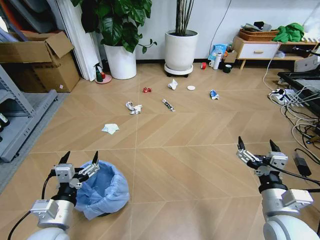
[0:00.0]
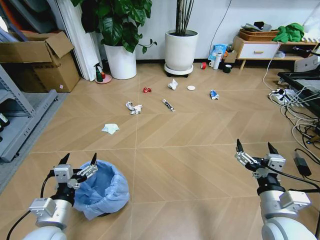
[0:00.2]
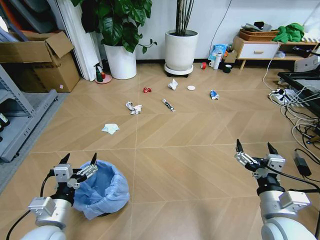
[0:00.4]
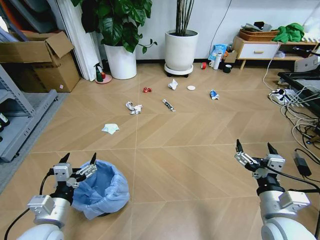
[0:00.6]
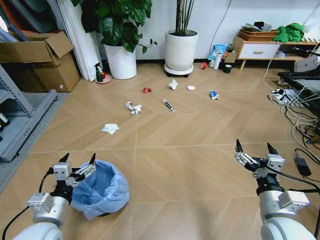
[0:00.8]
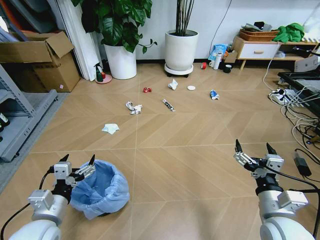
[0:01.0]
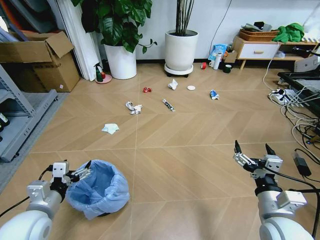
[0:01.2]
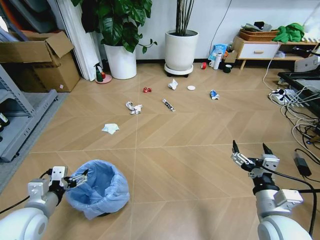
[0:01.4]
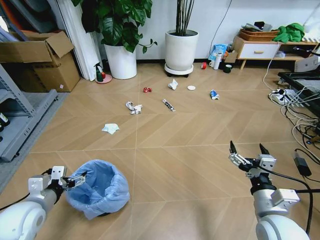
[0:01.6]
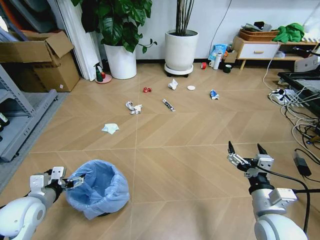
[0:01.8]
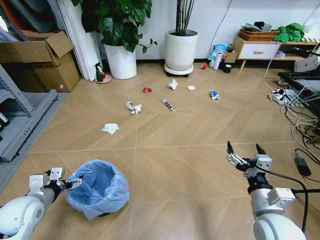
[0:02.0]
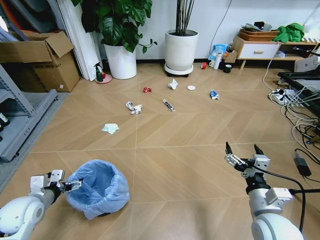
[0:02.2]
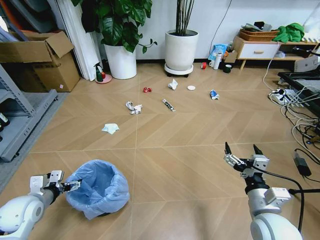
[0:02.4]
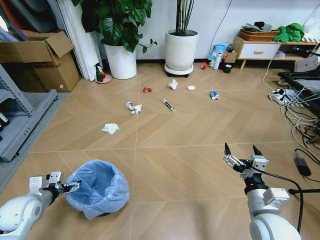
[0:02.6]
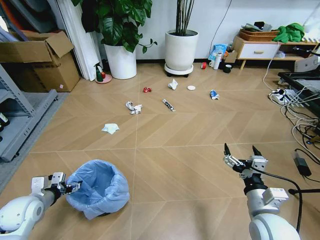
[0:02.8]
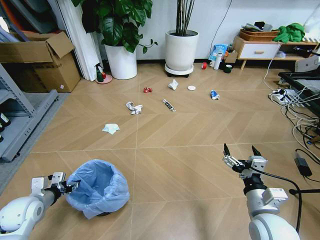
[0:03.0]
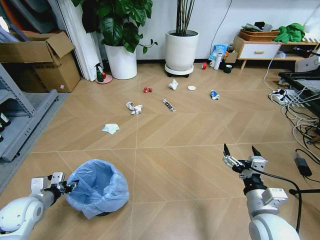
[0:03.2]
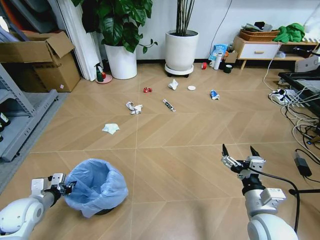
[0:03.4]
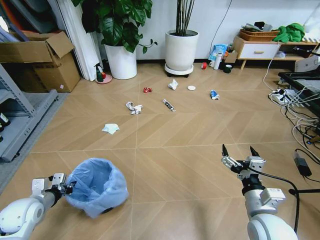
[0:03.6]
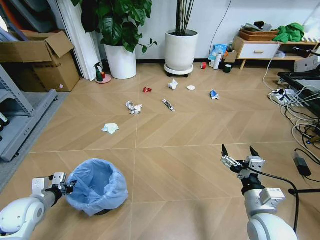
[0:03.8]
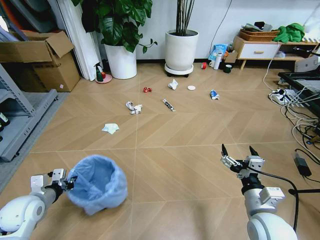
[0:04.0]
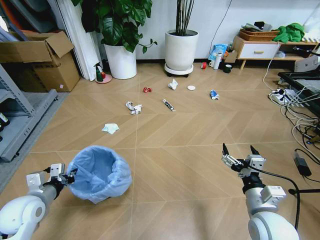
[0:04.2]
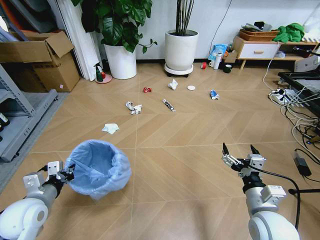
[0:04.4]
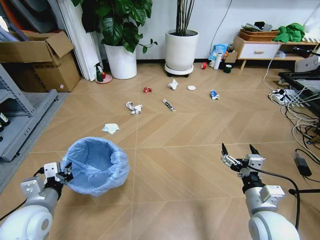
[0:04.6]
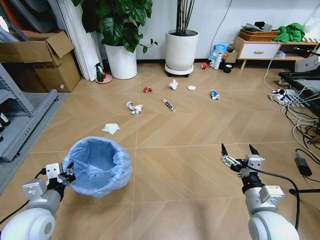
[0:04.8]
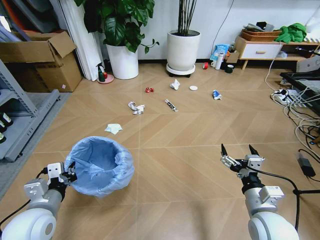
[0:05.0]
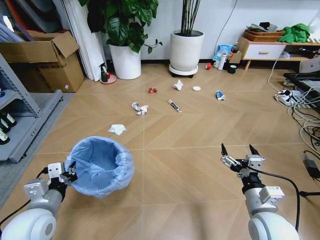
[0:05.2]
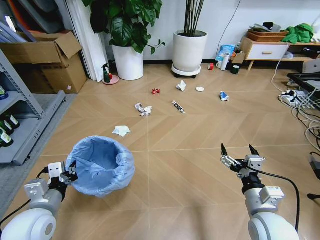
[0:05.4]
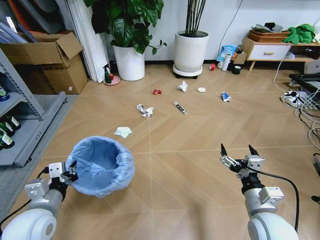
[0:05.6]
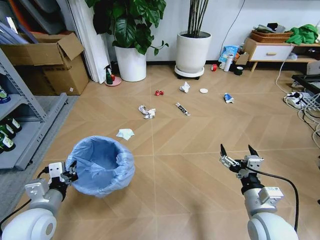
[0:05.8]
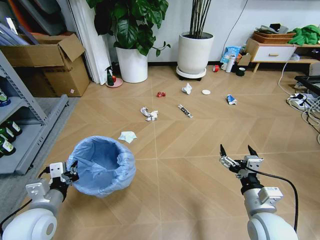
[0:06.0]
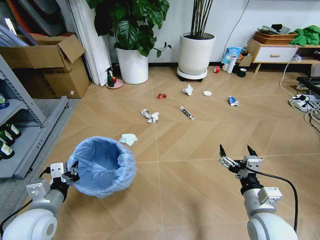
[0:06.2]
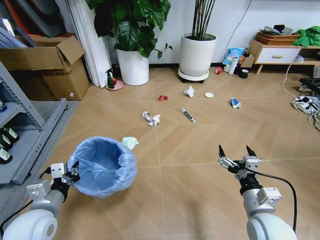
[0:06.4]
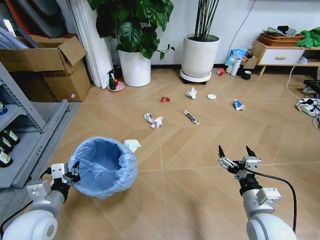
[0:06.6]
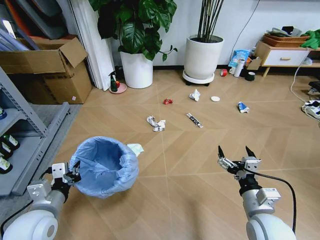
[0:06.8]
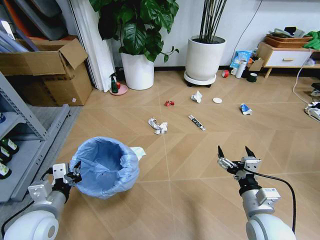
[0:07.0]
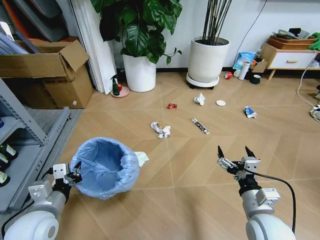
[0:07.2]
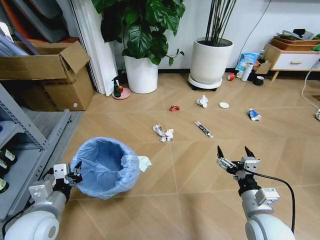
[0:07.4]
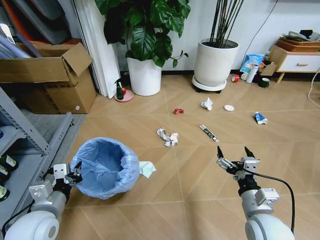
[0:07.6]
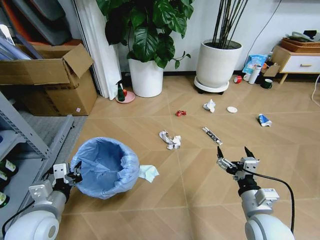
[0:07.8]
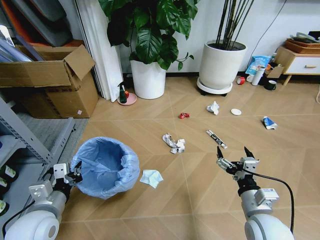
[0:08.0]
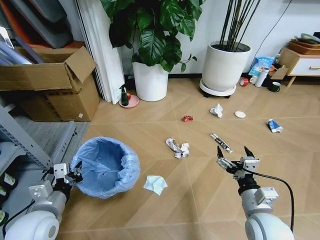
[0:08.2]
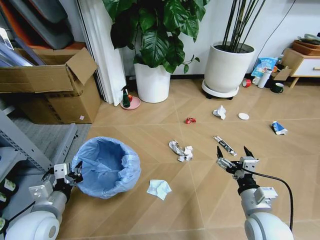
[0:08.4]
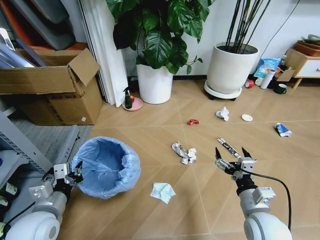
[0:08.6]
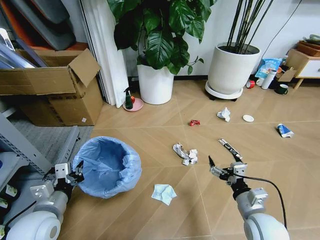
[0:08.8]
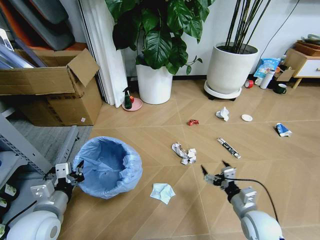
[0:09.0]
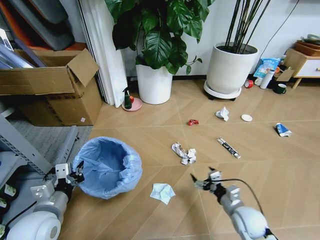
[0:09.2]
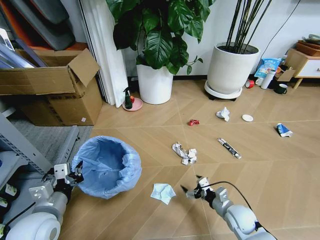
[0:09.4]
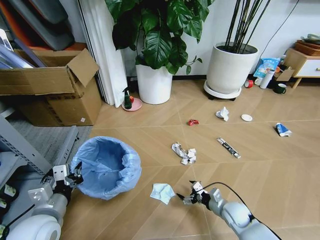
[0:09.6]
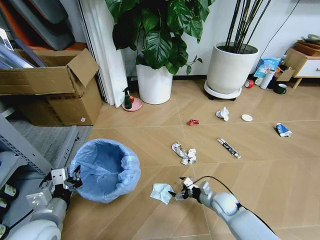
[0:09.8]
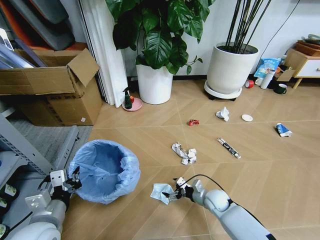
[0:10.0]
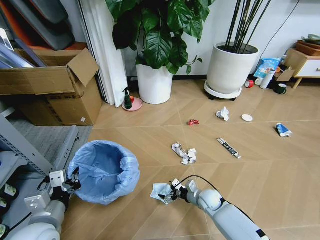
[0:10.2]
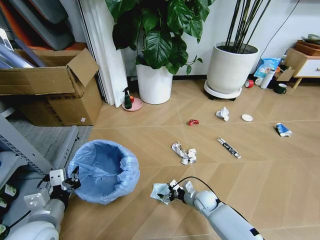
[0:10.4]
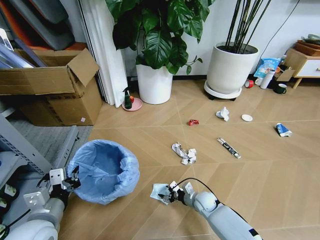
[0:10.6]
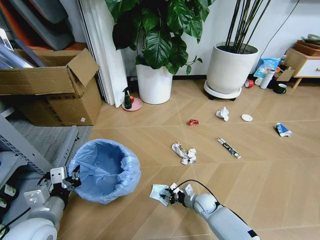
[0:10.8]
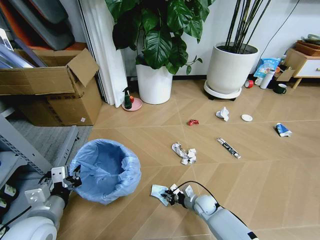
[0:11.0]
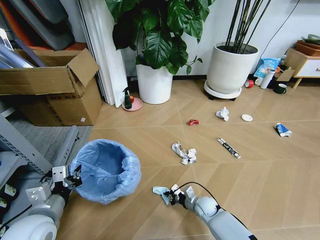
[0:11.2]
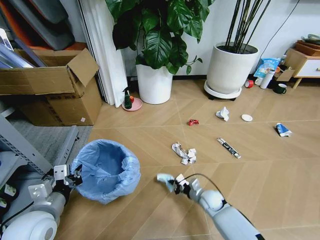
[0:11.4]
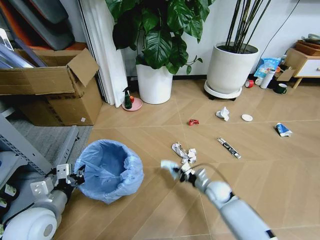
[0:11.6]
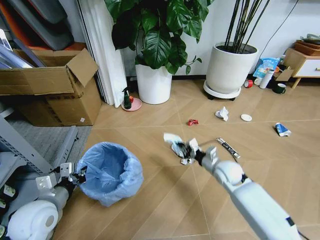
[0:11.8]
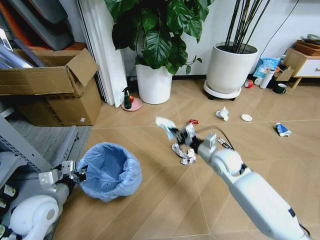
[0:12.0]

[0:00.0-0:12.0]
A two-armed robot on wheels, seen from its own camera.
Task of the whole recording: Pick up the trash bin and place the garbage on the floor into it.
0:01.6 to 0:03.0: The left gripper shifts approximately 10 cm downward and to the left, and closes its fingers.
0:03.0 to 0:04.4: The left gripper moves approximately 5 cm, and closes up.
0:04.4 to 0:06.0: The left gripper moves to the right, roughly 5 cm.
0:07.6 to 0:09.0: The right gripper is displaced downward by approximately 10 cm.
0:09.0 to 0:10.4: The right gripper shifts roughly 20 cm downward, forward and to the left.
0:10.4 to 0:12.0: The left gripper moves forward, some 5 cm. Meanwhile the right gripper shifts approximately 25 cm upward, and closes.

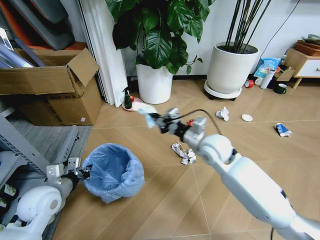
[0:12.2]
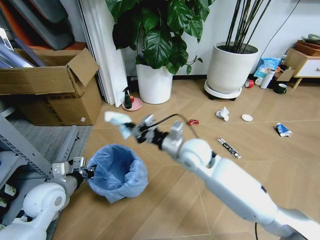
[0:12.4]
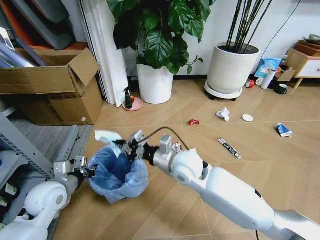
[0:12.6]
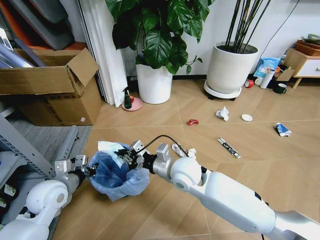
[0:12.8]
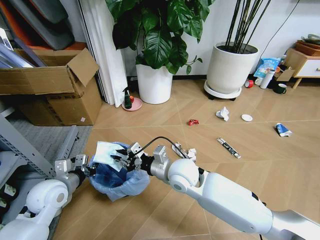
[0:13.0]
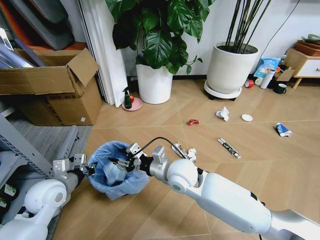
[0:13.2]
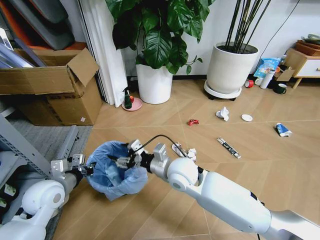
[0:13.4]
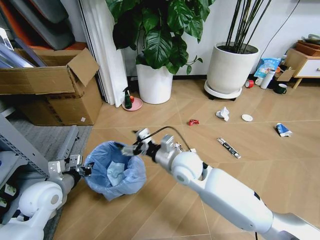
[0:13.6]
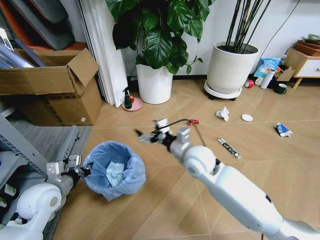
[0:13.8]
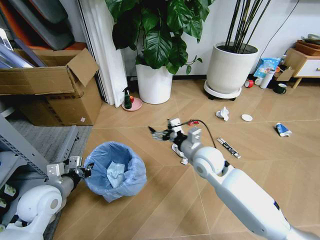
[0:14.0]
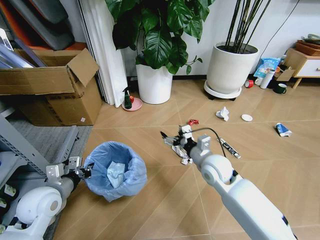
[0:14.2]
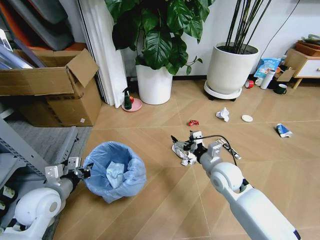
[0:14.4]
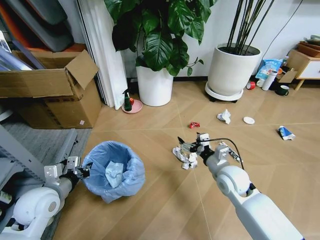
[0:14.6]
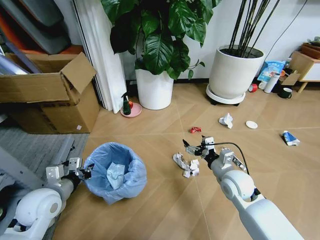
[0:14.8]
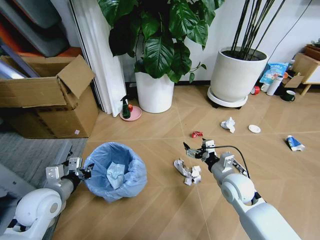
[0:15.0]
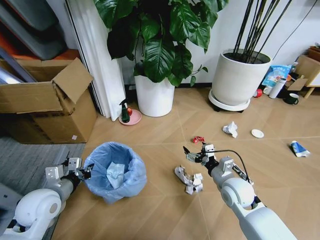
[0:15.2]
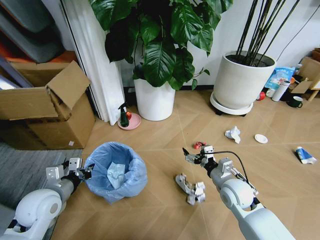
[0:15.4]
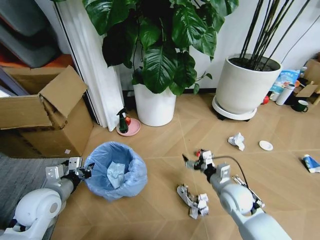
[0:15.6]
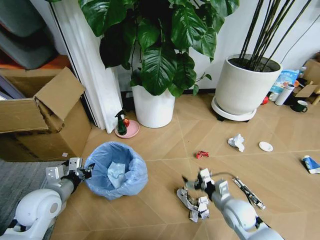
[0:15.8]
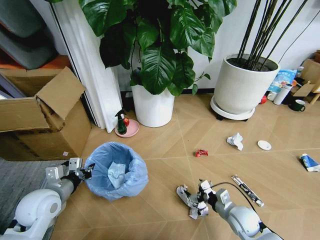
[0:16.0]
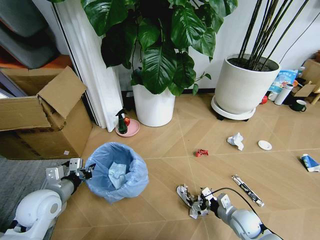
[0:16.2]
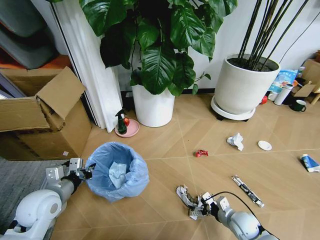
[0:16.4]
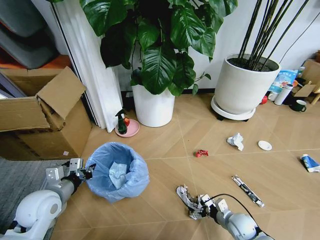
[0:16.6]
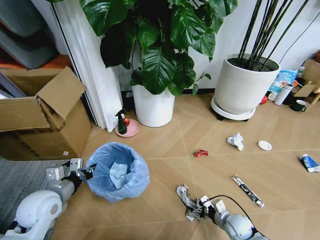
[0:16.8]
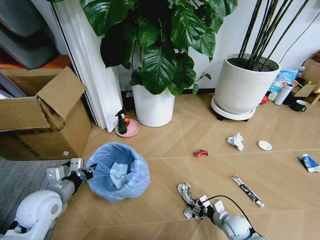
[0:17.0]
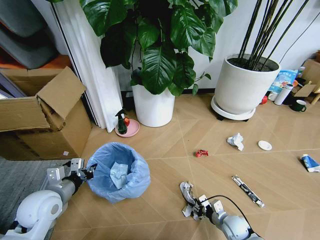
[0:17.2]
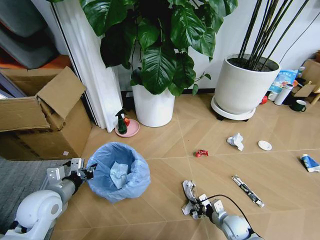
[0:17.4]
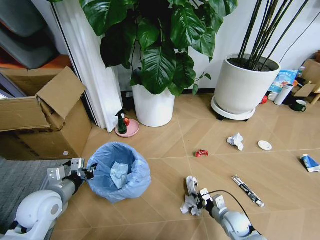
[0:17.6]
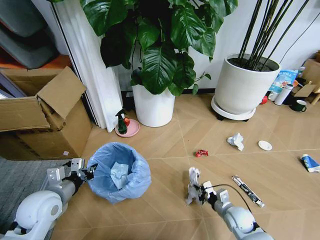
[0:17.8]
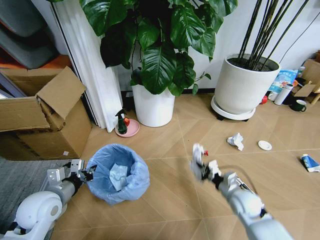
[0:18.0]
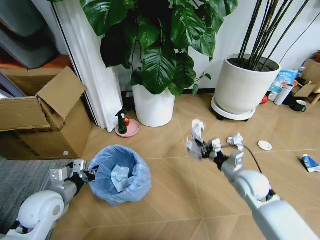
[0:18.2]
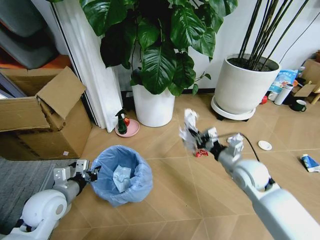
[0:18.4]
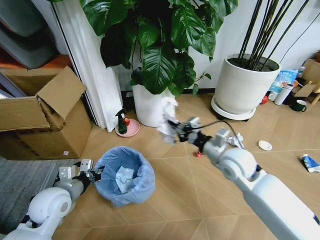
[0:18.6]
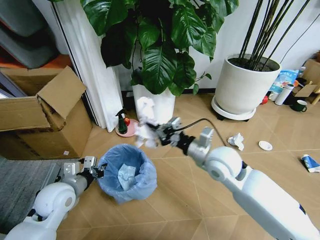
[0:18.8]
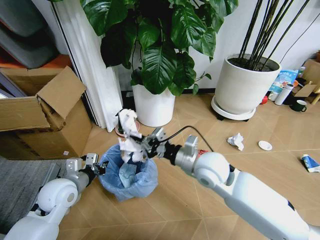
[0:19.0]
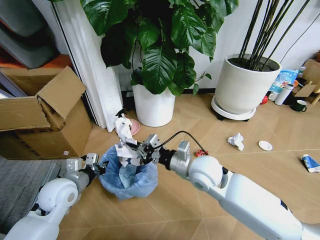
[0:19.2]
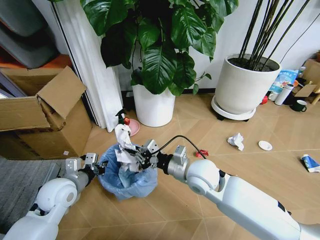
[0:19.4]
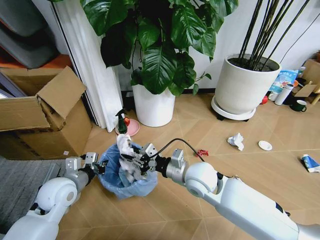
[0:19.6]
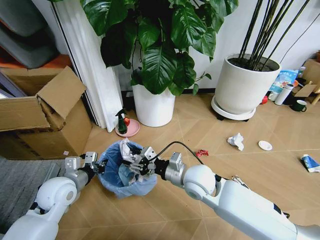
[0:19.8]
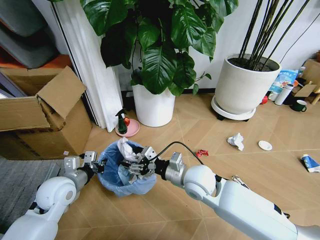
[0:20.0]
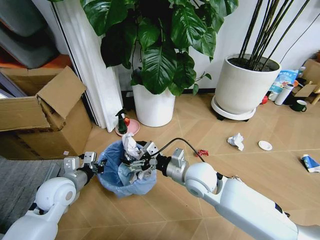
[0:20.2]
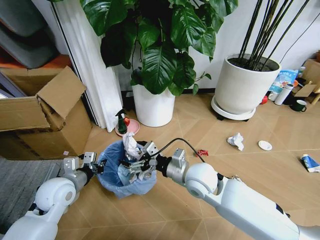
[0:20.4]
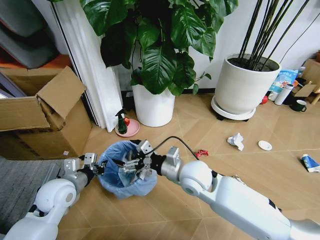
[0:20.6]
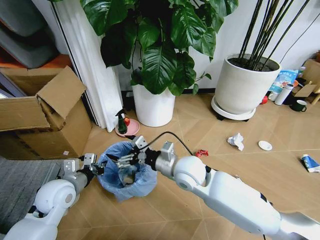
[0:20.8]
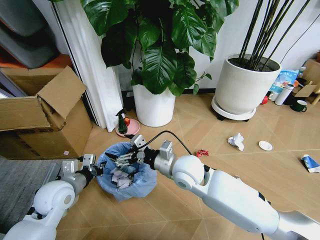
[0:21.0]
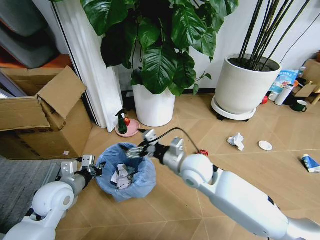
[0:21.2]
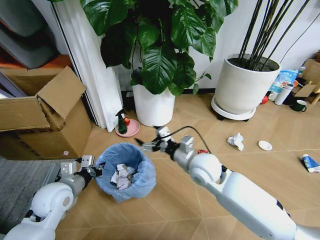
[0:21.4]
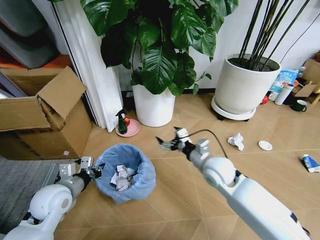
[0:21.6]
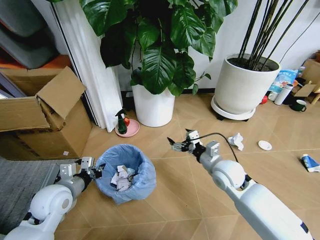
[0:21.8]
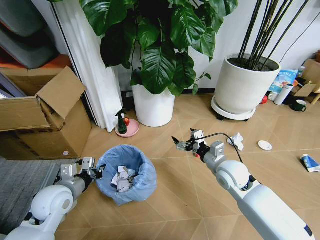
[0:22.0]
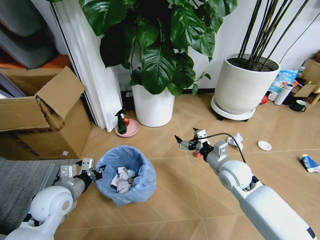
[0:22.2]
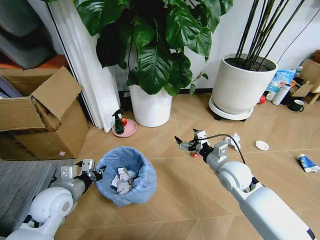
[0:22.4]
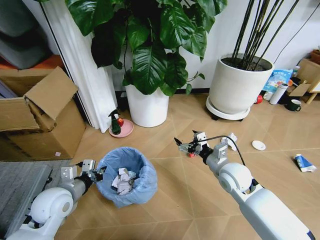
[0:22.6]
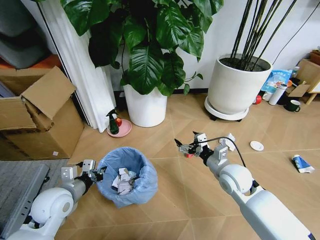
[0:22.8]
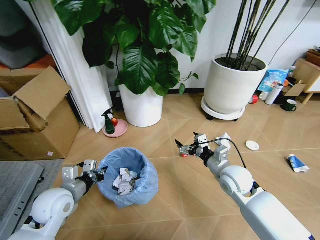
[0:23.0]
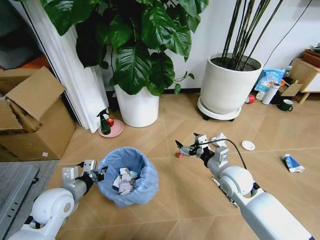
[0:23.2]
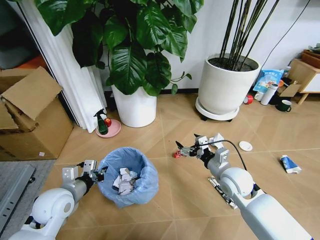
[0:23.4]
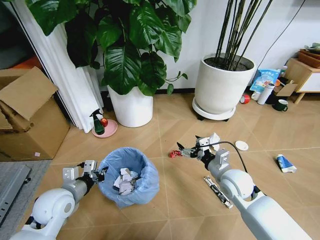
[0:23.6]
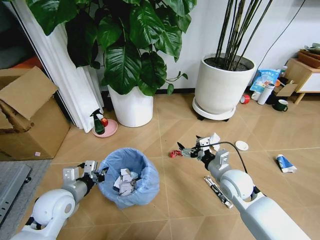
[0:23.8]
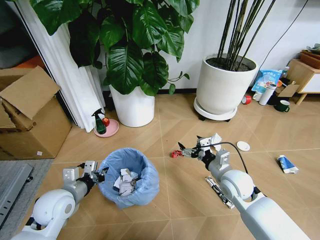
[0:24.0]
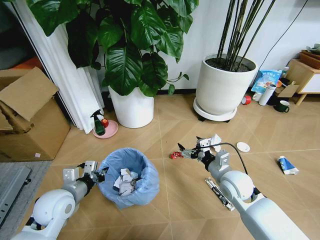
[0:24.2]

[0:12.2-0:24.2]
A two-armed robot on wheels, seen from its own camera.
Task of the whole recording: Pick up the trash bin and place the garbage on the floor into it.
0:12.2 to 0:13.8: The right gripper is displaced to the left by roughly 5 cm, and opens its fingers.
0:13.8 to 0:15.2: The right gripper travels to the right, downward and backward by some 15 cm.
0:15.2 to 0:16.6: The right gripper travels downward and backward by approximately 20 cm.
0:16.6 to 0:18.2: The right gripper is displaced upward and forward by about 20 cm, and closes its fingers.
0:18.2 to 0:19.8: The right gripper is displaced to the left by roughly 20 cm, and opens up.
0:19.8 to 0:21.2: The right gripper opens its fingers.
0:21.2 to 0:22.6: The right gripper heads to the right, covering some 15 cm.
